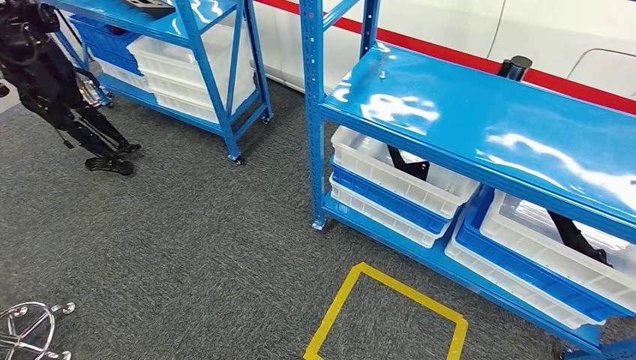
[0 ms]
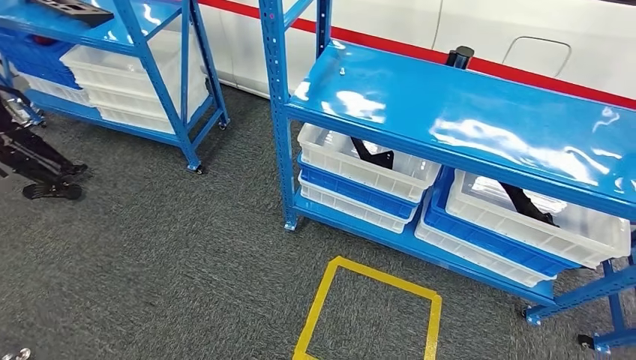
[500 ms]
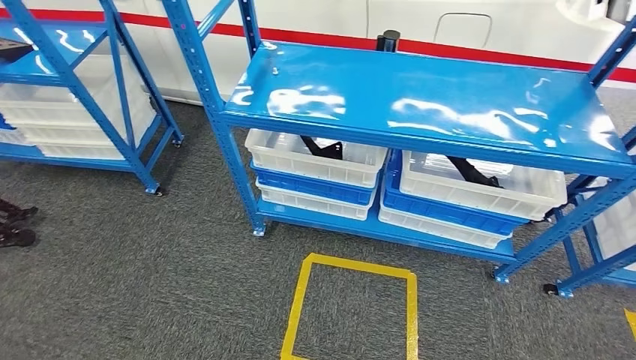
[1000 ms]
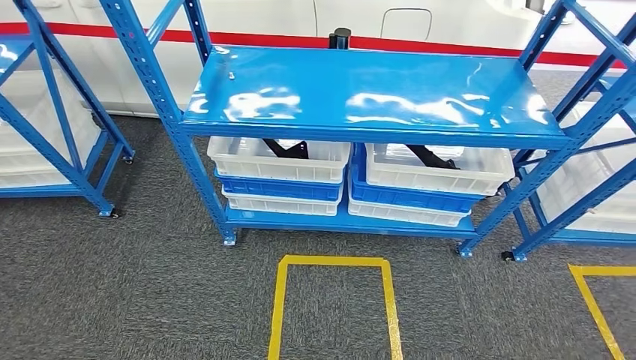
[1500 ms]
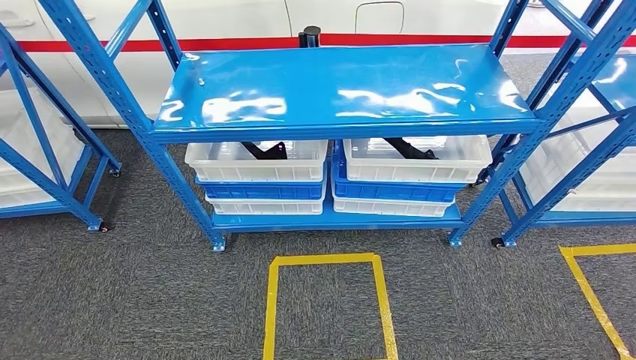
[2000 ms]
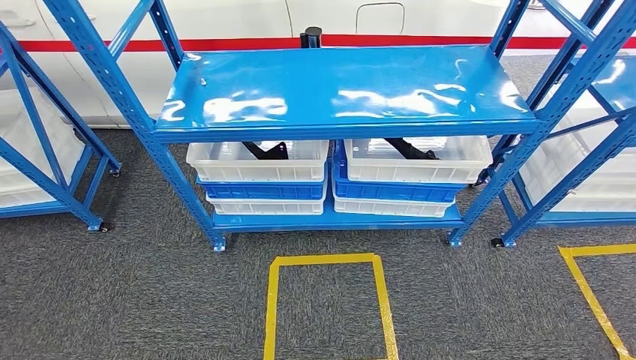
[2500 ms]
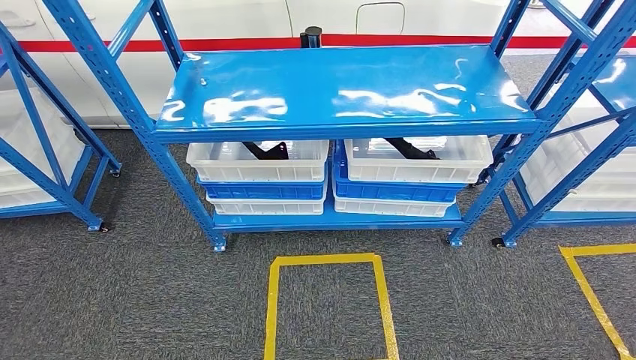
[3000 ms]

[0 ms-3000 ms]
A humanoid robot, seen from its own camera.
Step, 0 ms to 3000 ms: Move to the initial position of the shelf.

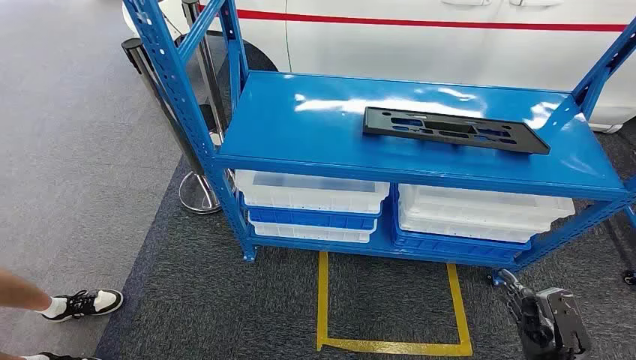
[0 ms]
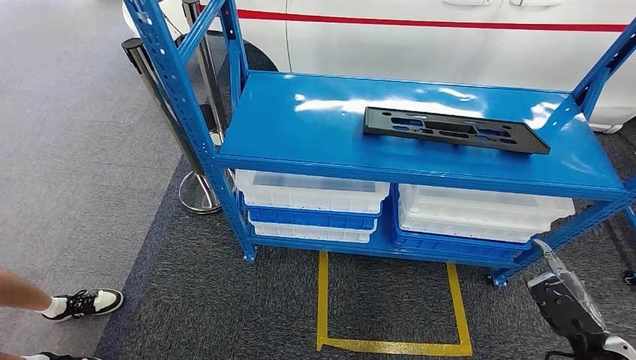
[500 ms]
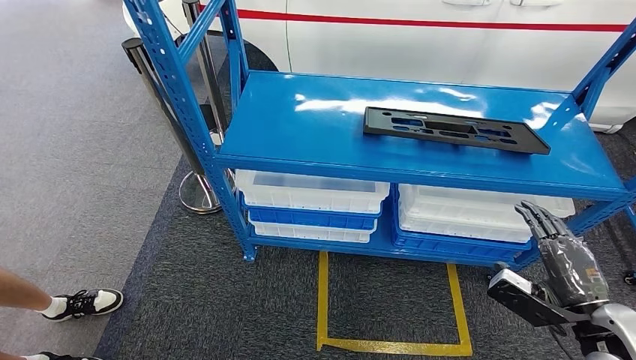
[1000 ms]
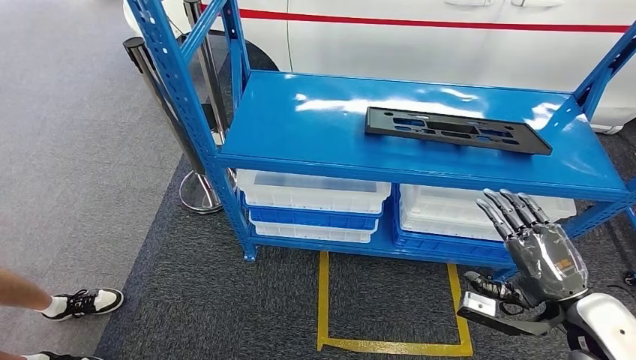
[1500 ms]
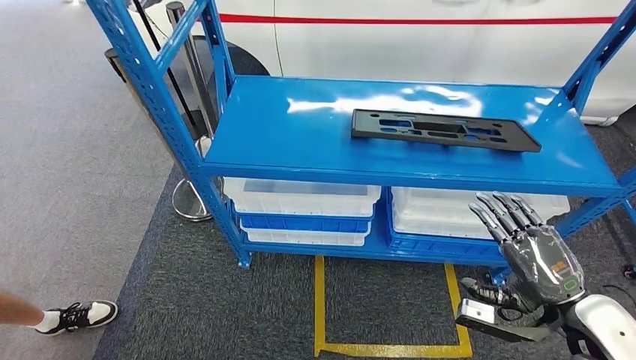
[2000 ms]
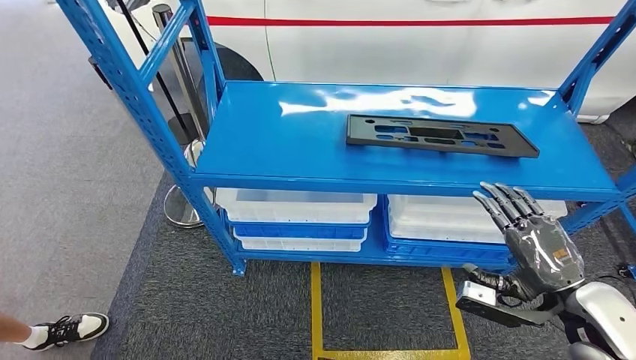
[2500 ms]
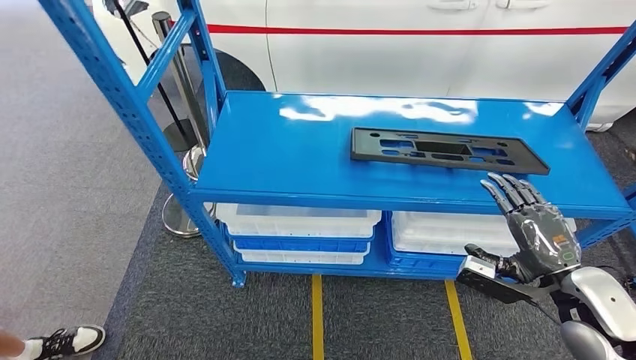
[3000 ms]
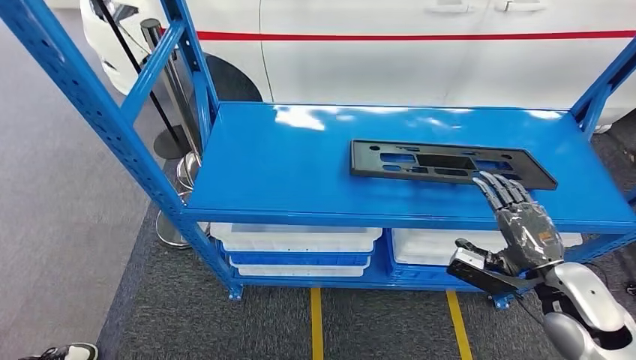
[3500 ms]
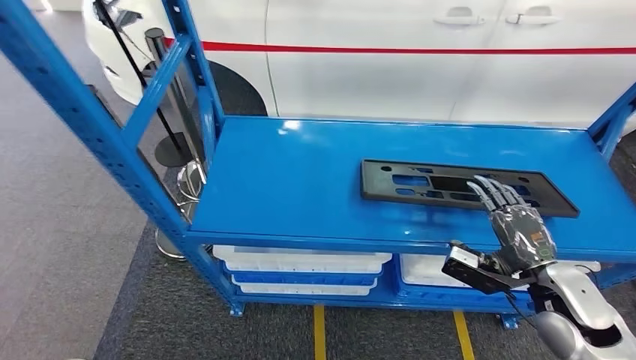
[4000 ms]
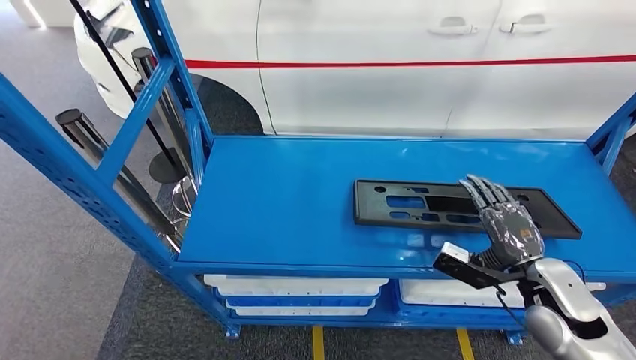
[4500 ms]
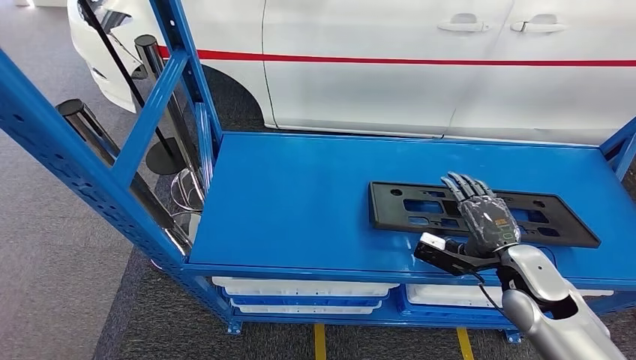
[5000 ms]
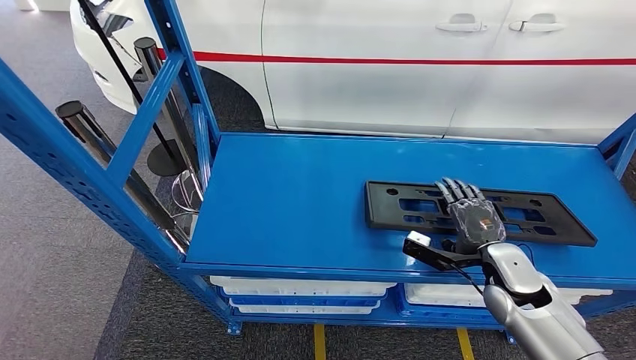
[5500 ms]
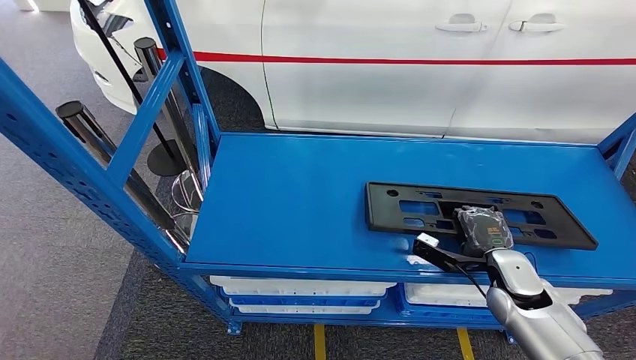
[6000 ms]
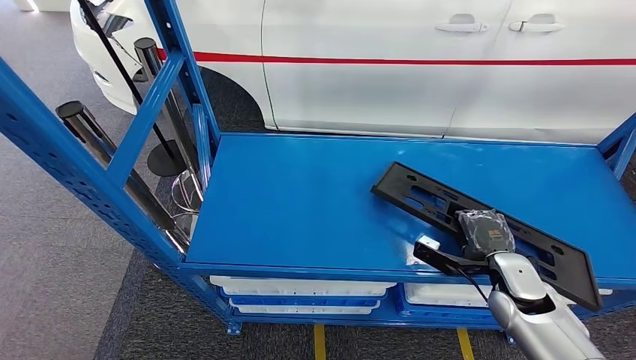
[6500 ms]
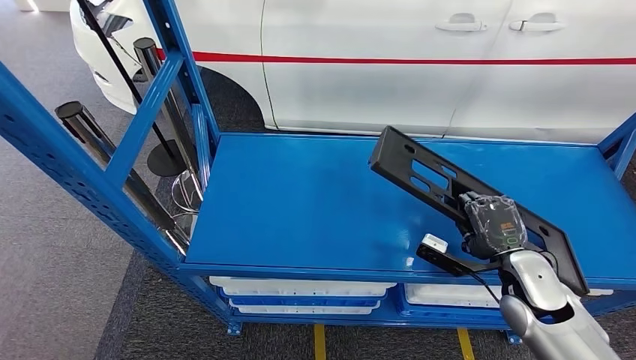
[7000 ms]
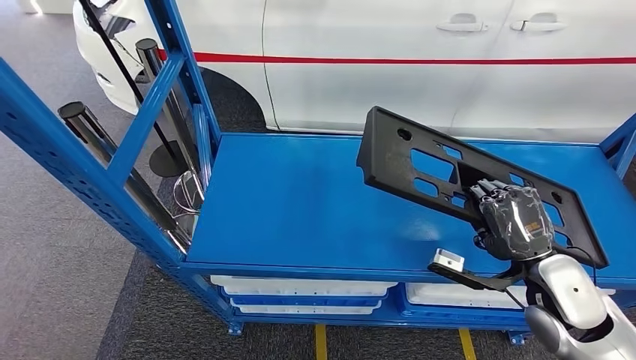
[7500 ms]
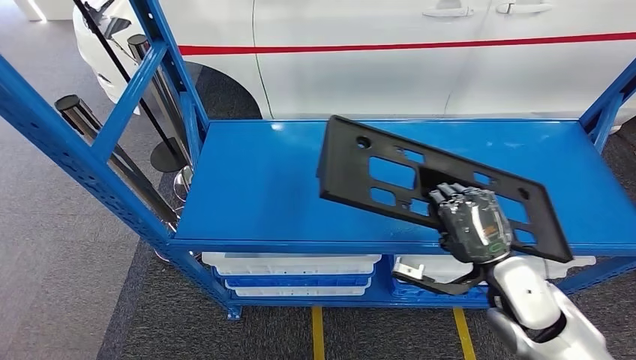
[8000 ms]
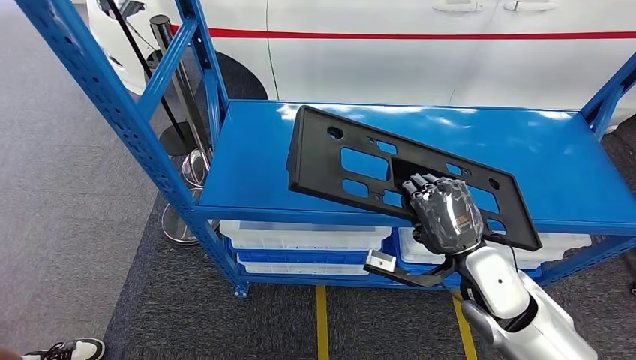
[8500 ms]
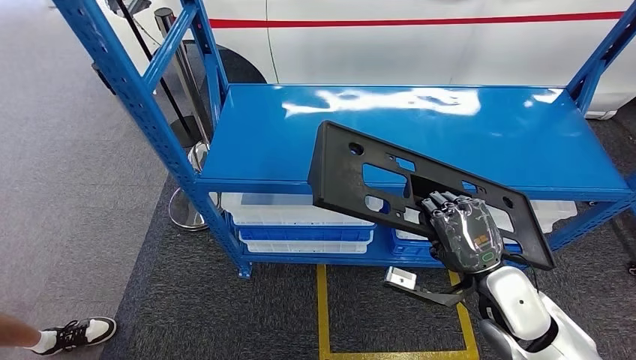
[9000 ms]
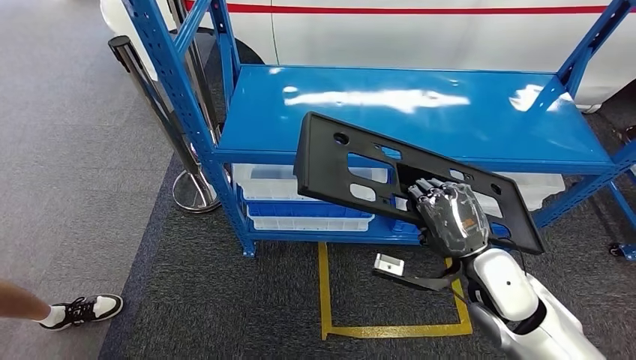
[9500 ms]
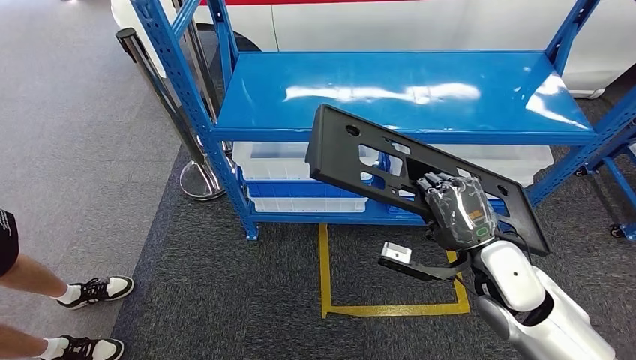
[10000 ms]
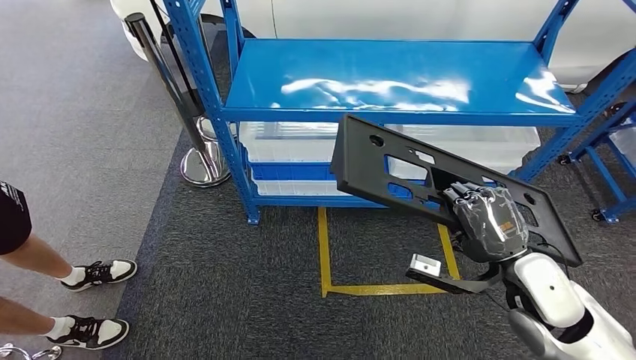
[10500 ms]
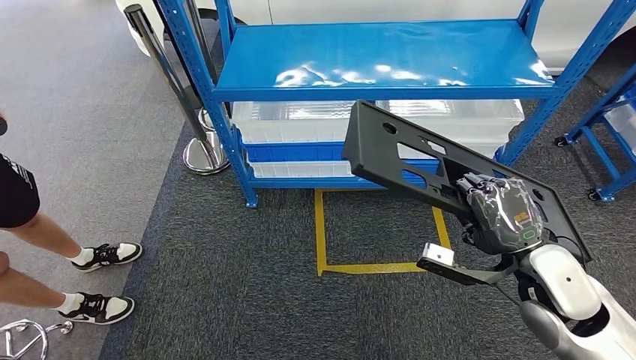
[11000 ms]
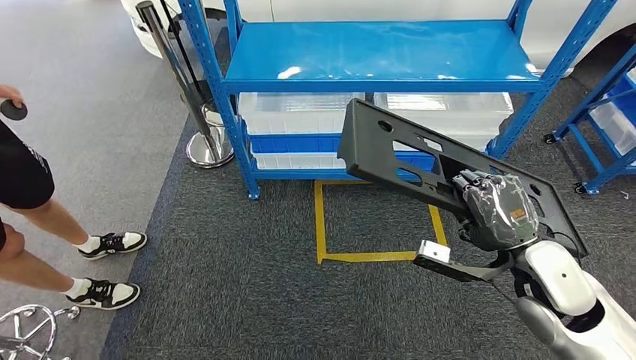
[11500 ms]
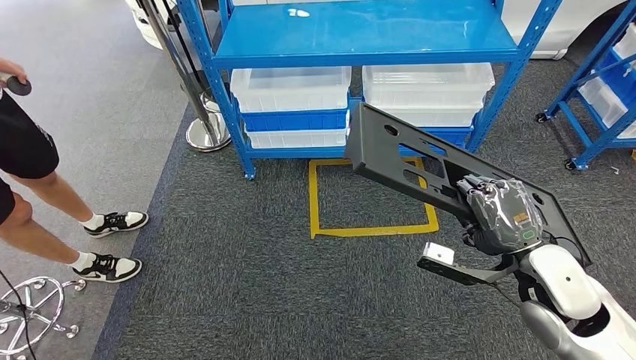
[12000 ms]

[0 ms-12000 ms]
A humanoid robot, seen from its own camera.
Step, 0 ms to 7000 ms: Pick up the large material from the shelf.

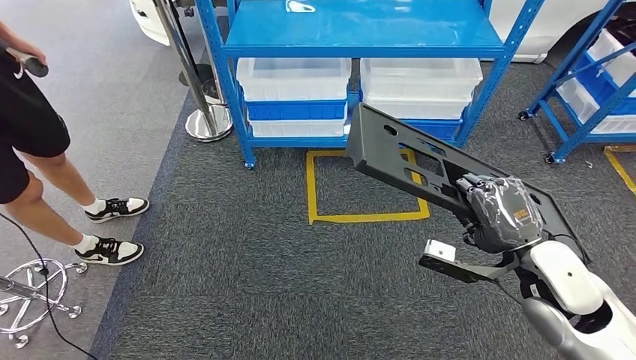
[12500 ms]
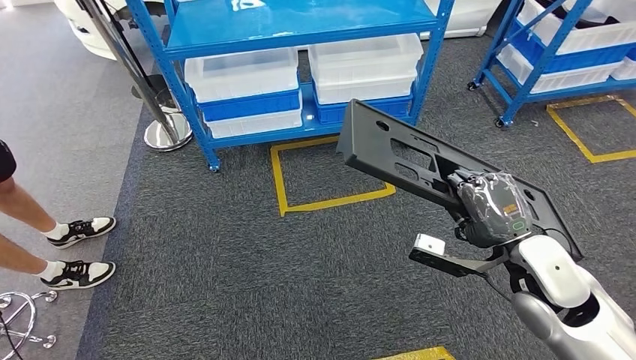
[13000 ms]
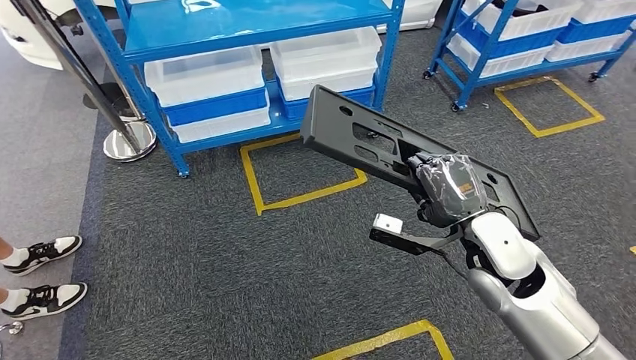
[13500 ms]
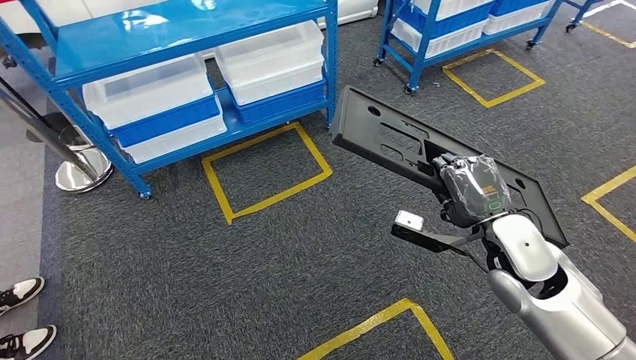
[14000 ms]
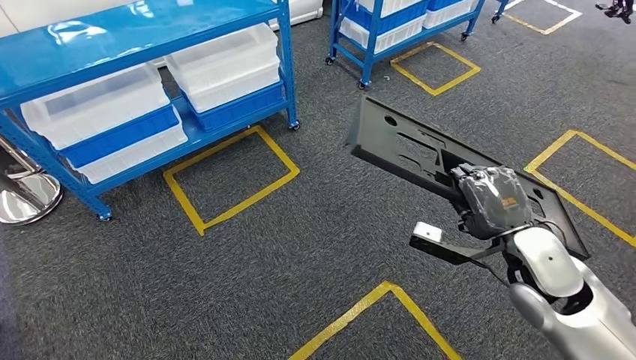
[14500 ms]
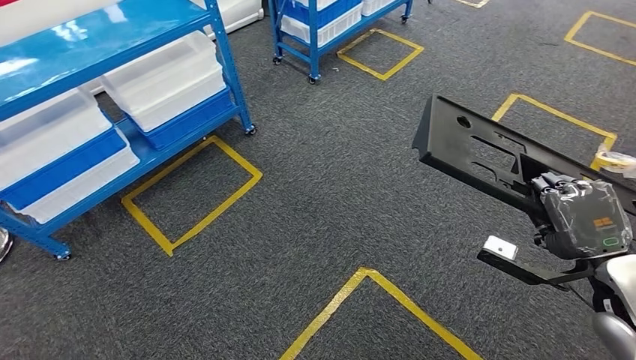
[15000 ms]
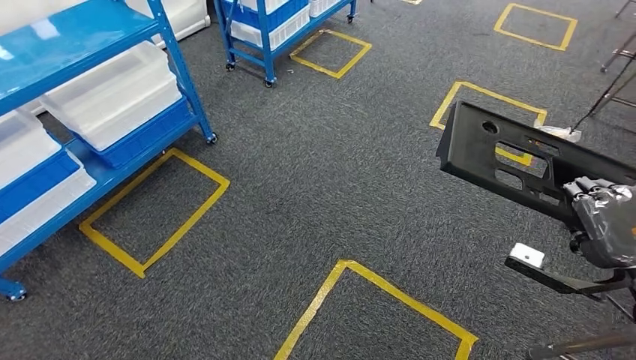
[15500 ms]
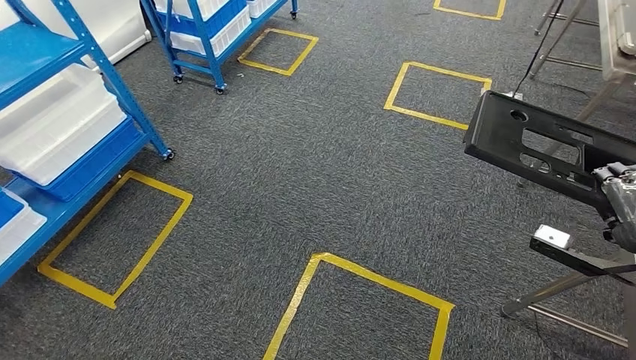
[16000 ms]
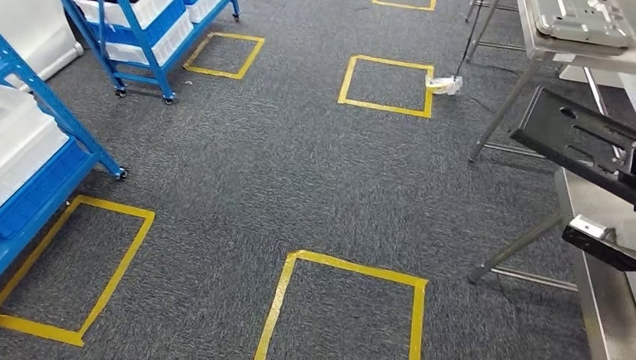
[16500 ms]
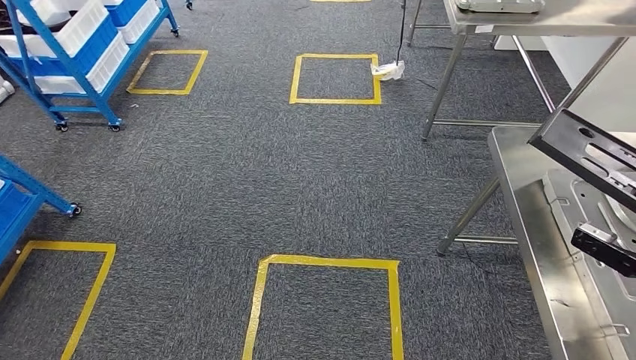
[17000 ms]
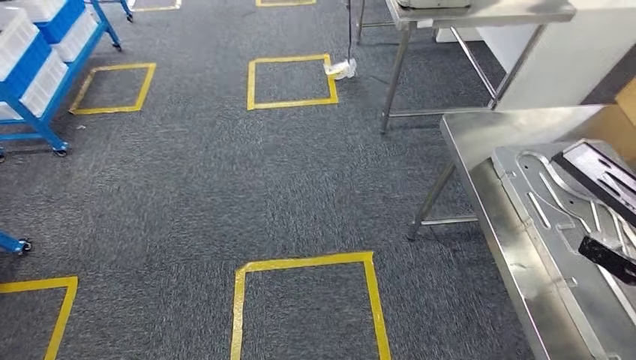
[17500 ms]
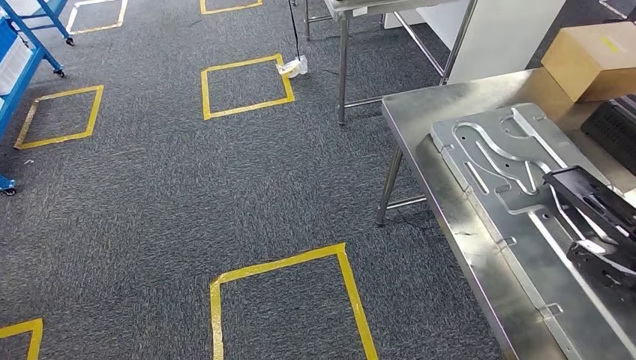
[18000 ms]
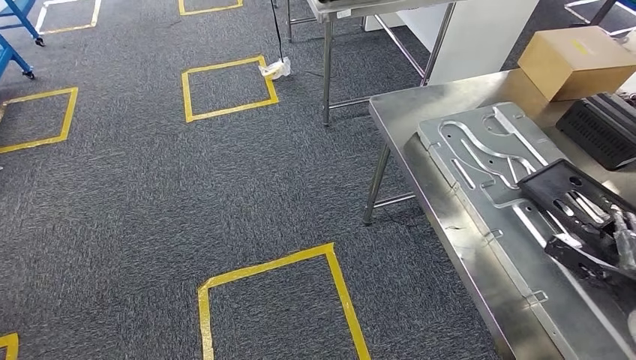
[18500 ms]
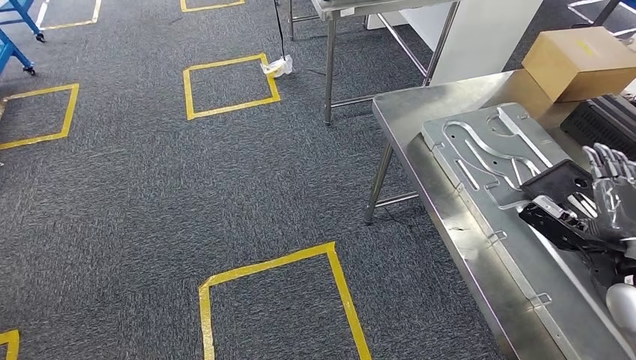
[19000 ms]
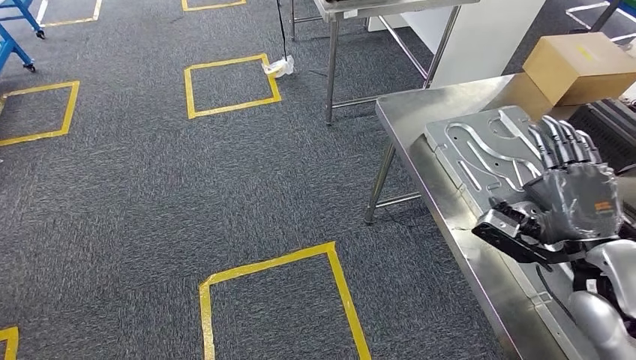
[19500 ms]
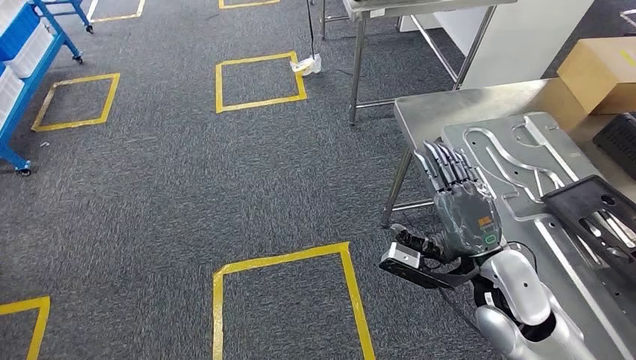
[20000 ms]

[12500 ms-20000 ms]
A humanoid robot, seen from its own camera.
Step, 12500 ms to 16500 ms: Move the large material to the workbench.
